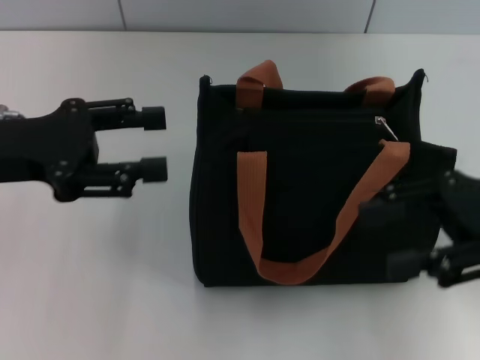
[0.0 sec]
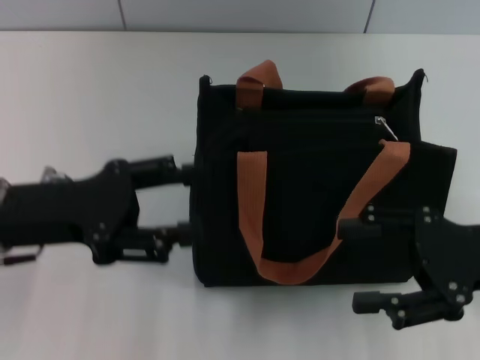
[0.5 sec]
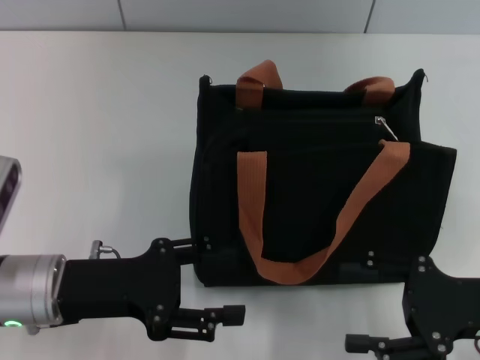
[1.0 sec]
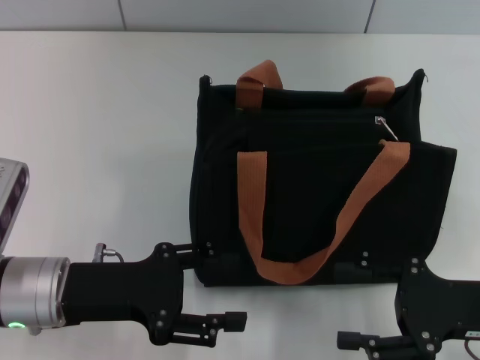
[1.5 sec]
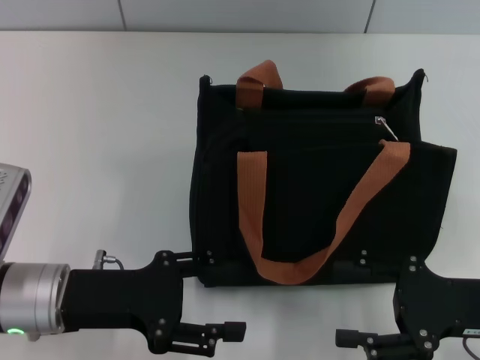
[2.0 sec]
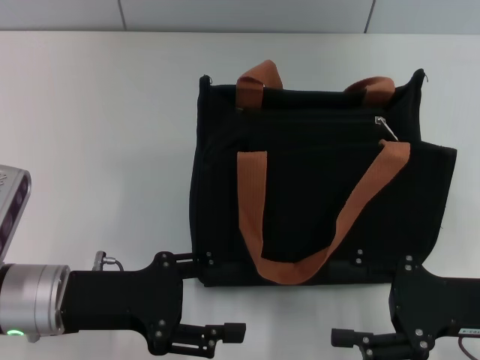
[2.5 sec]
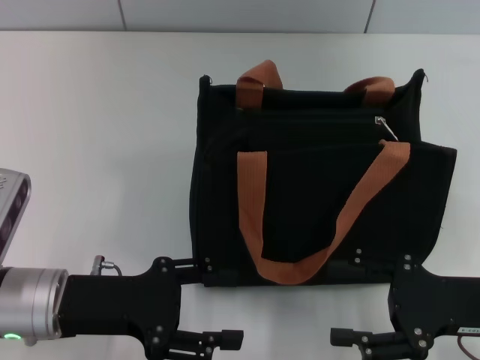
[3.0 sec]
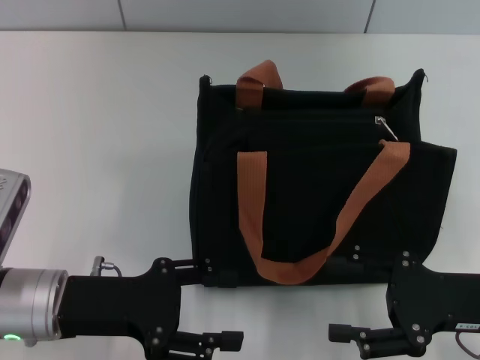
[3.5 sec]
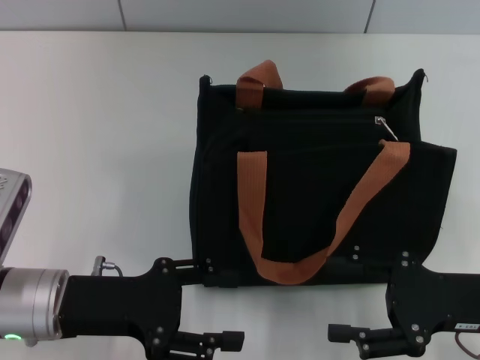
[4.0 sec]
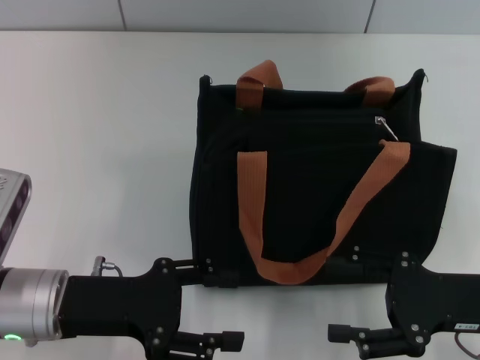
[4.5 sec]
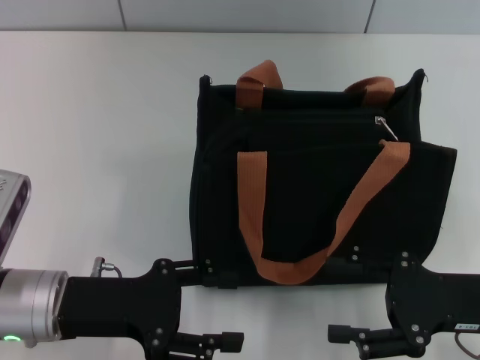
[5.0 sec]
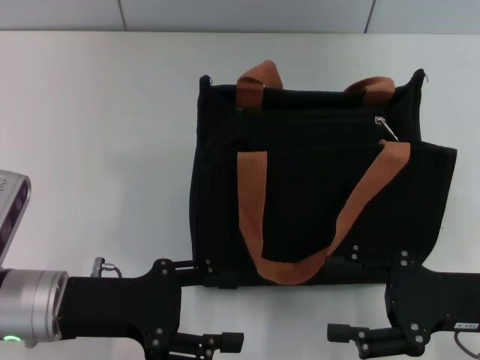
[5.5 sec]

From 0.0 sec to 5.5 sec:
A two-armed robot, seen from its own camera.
From 0.0 sec to 2.0 sec: The left gripper travels downward, backward and to the right by about 15 cm, and opens its fingers; the right gripper moves downward and backward, about 15 cm.
From 2.0 sec to 5.5 sec: Both grippers stay about where they are.
